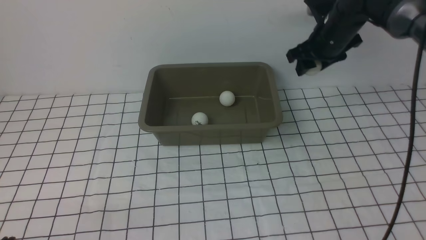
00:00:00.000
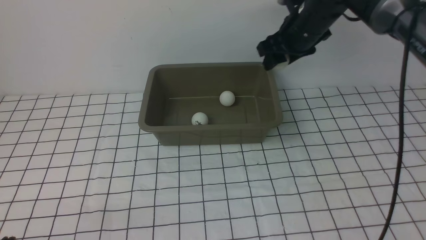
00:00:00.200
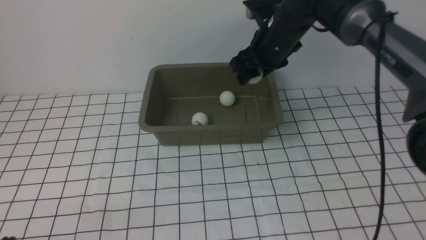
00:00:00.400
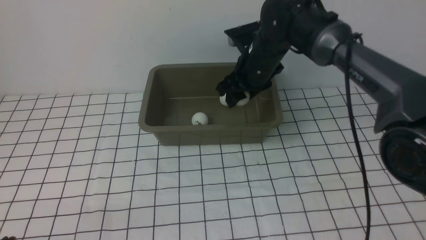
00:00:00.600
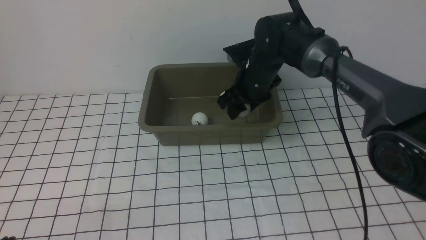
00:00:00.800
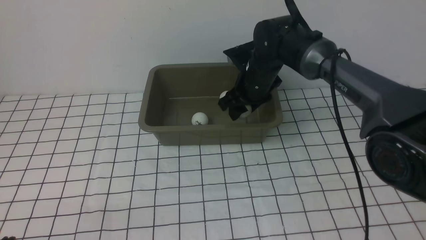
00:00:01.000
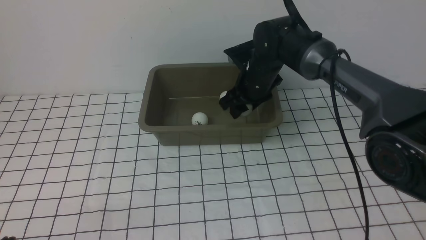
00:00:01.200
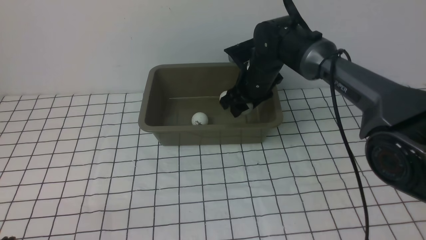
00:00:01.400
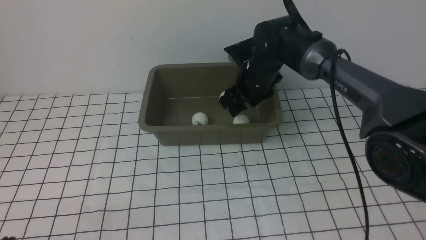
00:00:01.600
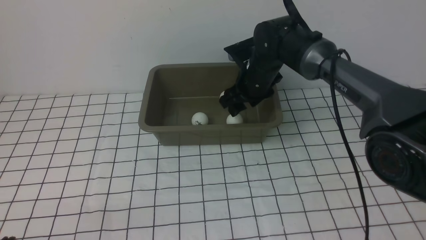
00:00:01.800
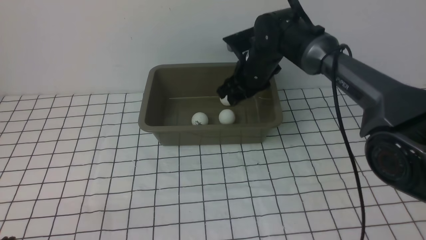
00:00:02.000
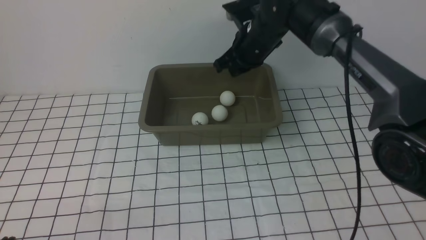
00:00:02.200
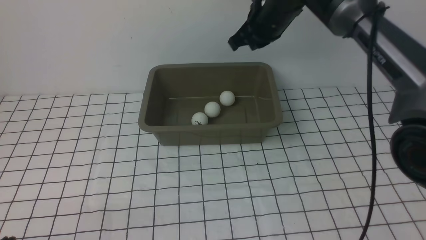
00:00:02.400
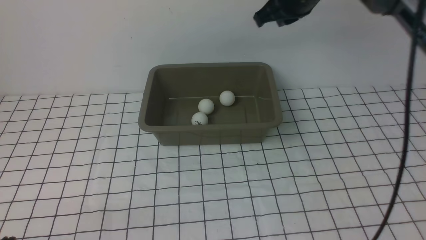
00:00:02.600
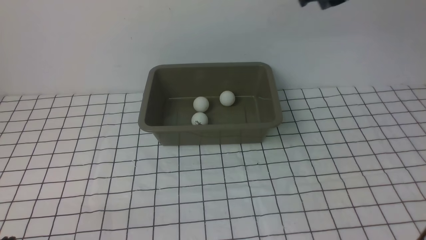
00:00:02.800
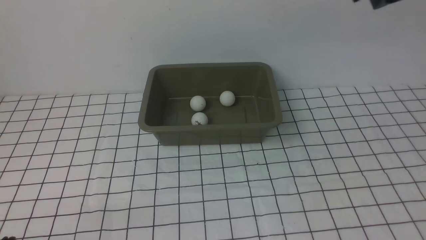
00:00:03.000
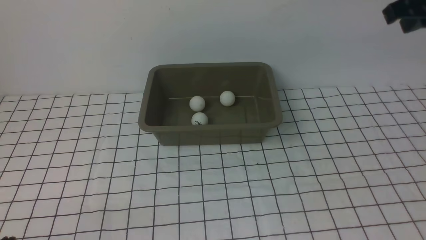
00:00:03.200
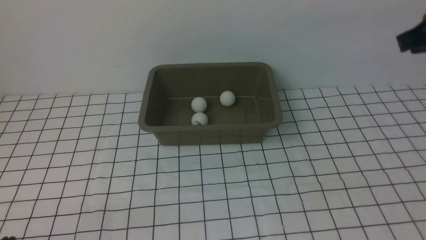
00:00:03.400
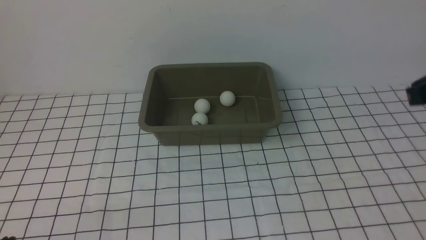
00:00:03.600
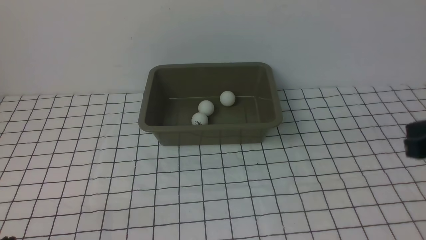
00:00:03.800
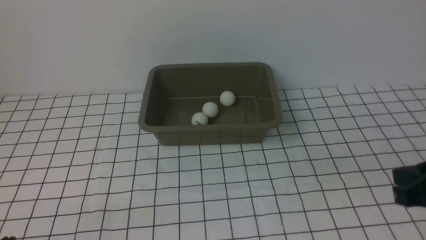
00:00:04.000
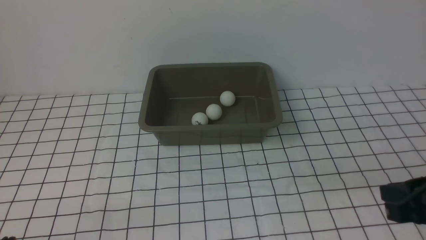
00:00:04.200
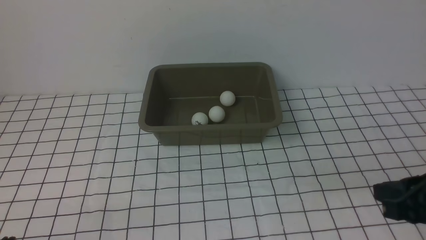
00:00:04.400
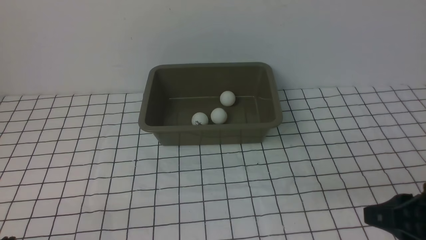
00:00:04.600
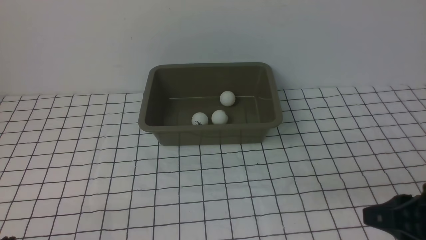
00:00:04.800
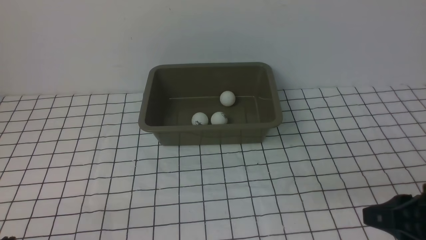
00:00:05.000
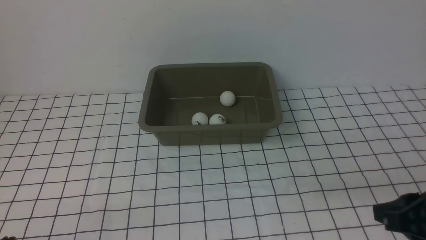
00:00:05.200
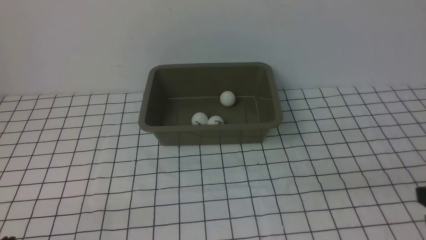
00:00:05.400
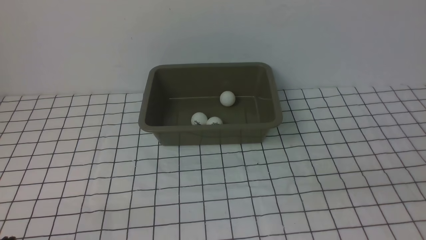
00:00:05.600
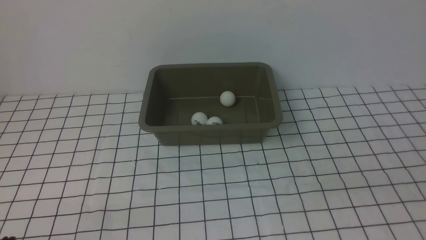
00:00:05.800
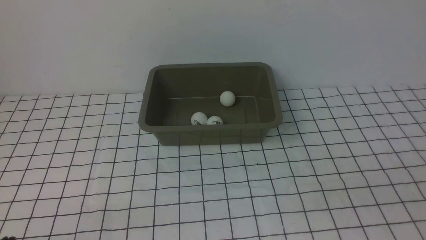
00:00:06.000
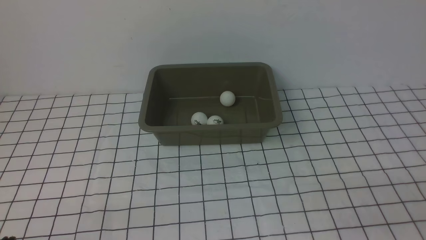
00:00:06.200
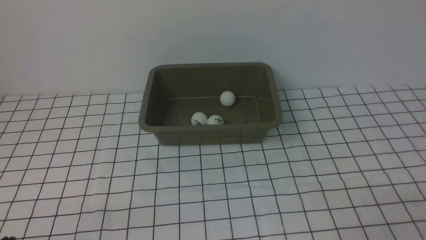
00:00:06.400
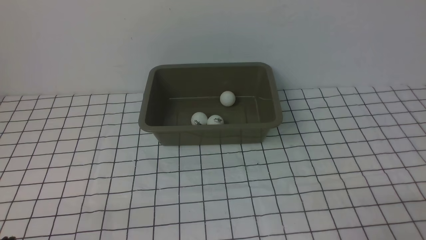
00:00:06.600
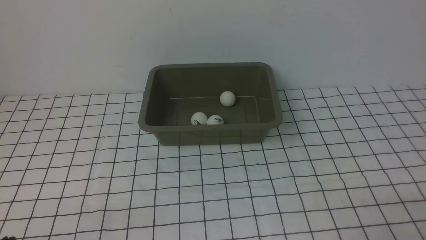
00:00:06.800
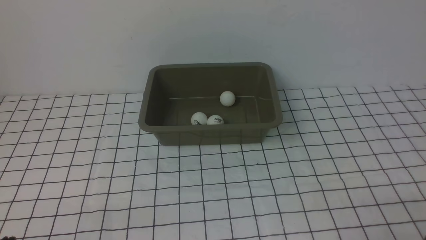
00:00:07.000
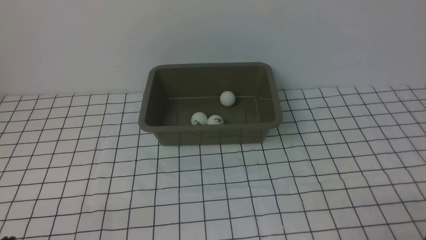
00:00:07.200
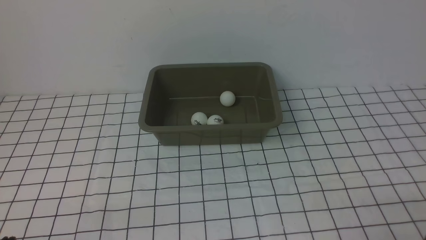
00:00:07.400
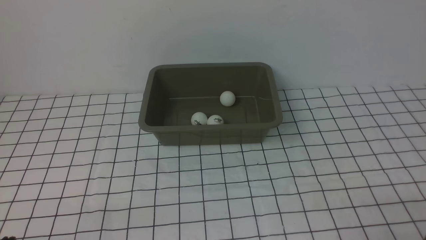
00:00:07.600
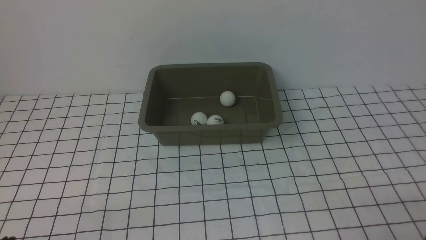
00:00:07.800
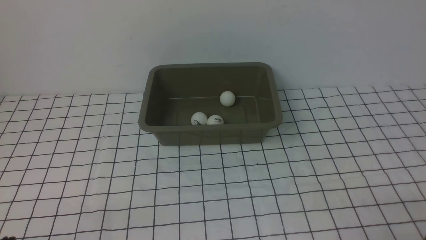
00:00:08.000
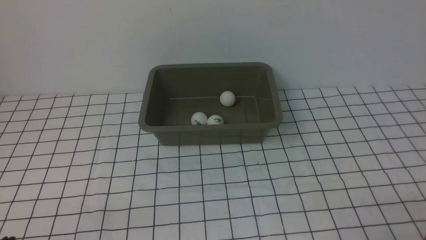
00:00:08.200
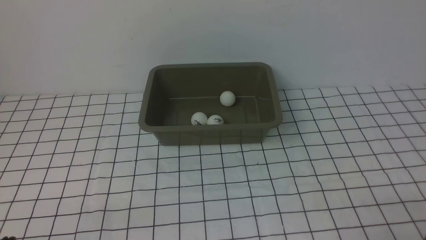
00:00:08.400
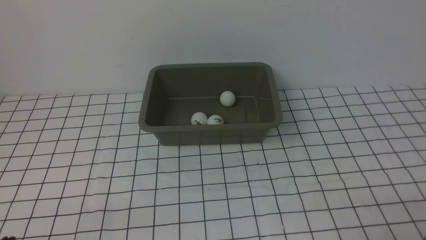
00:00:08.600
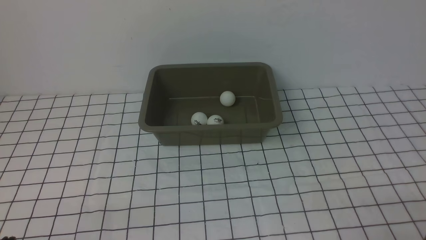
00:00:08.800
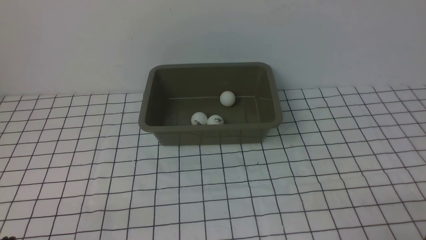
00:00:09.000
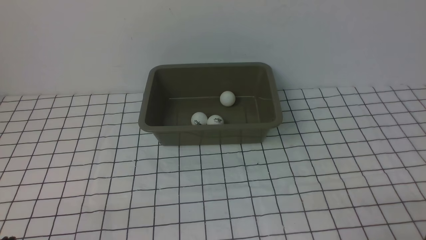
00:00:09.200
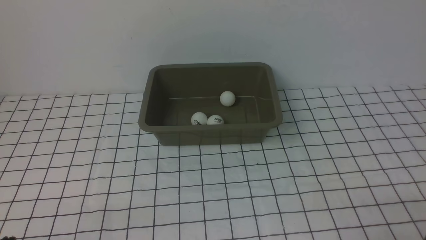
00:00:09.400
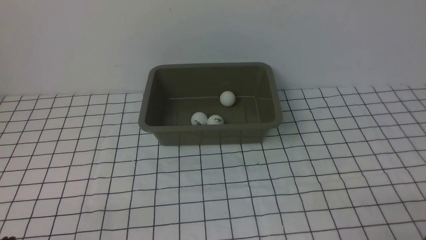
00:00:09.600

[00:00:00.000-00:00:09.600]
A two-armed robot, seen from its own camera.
Step, 00:00:00.000 to 00:00:01.800: use the right arm to put the table tennis ball into the box.
00:00:00.000 to 00:00:01.600: The right gripper travels to the left by some 15 cm.
00:00:01.600 to 00:00:03.200: The right gripper travels upward, to the right and backward by some 30 cm, and closes.
00:00:03.200 to 00:00:04.800: The right gripper goes some 30 cm backward and downward.
00:00:04.800 to 00:00:06.400: The right gripper goes some 10 cm backward.
00:00:08.000 to 00:00:09.600: Both grippers stay put.
